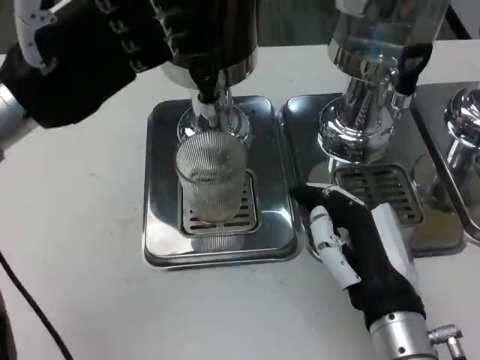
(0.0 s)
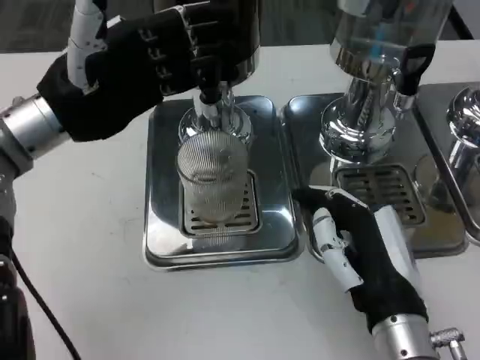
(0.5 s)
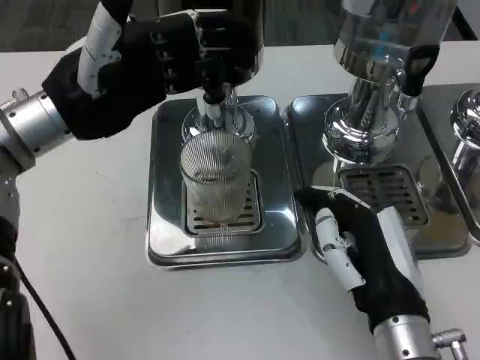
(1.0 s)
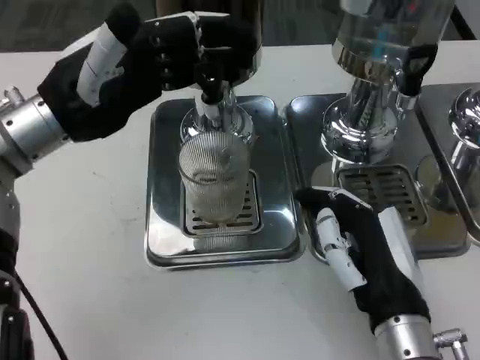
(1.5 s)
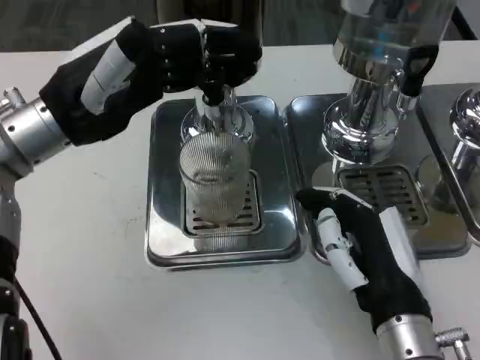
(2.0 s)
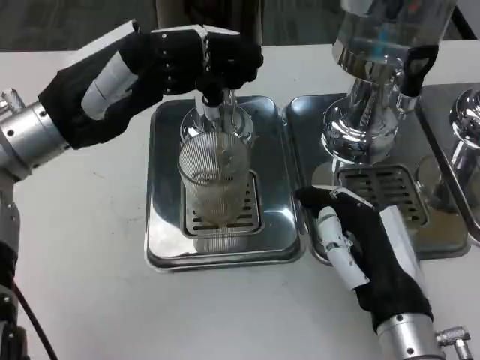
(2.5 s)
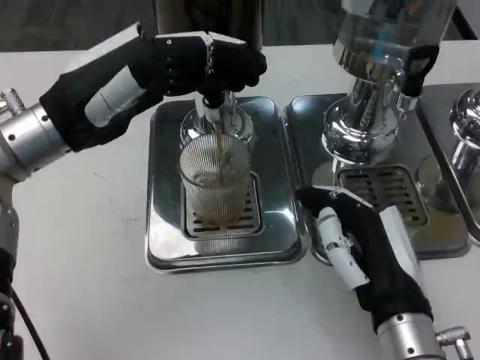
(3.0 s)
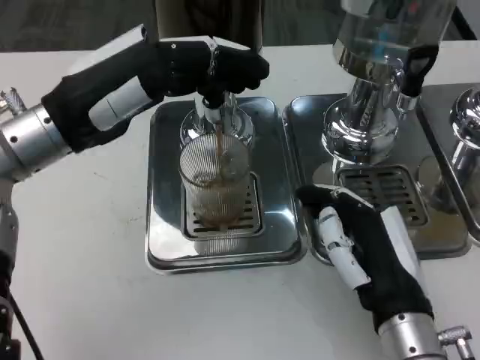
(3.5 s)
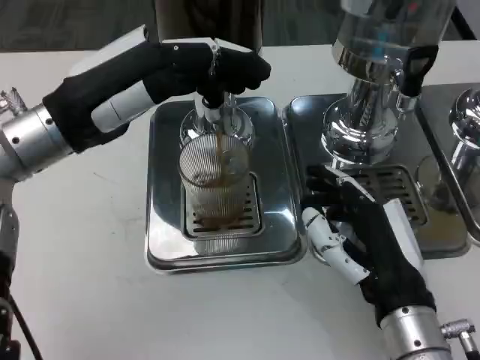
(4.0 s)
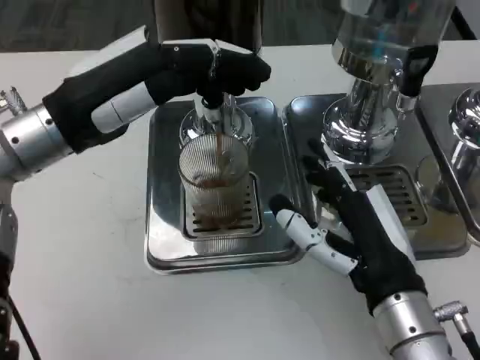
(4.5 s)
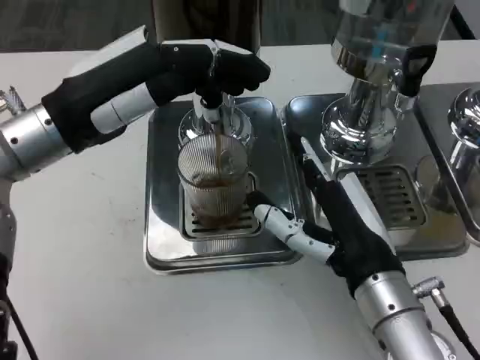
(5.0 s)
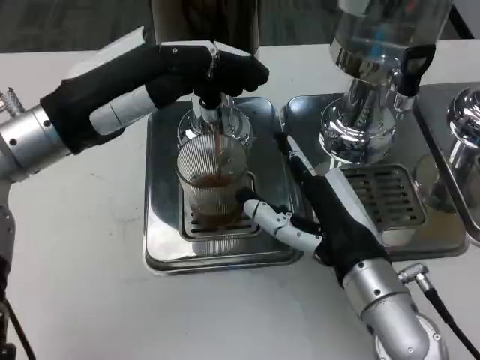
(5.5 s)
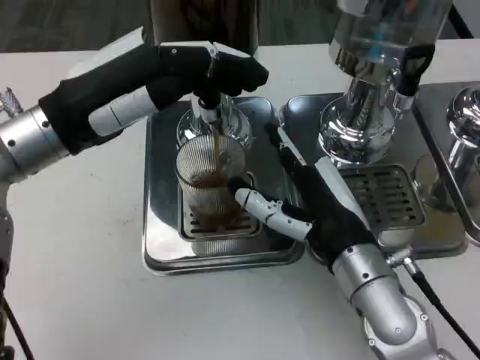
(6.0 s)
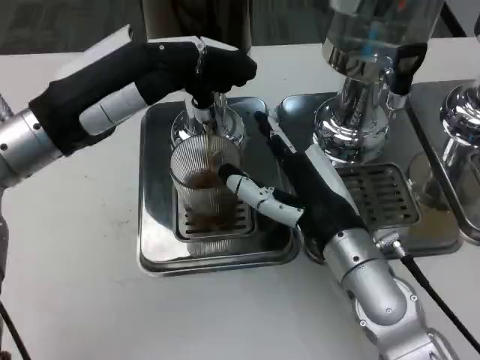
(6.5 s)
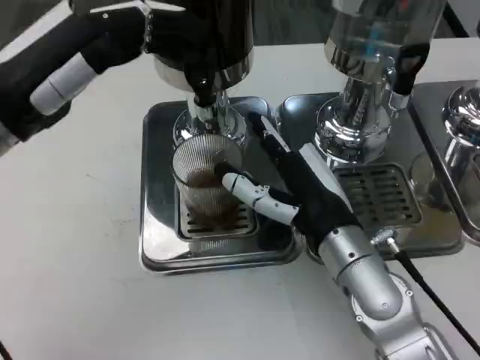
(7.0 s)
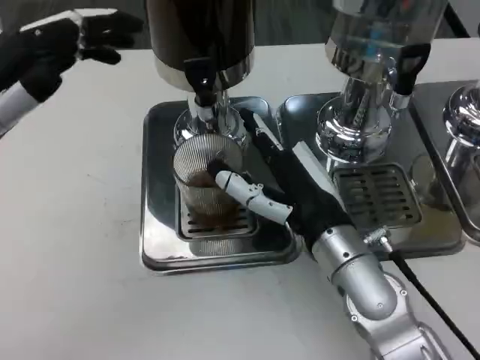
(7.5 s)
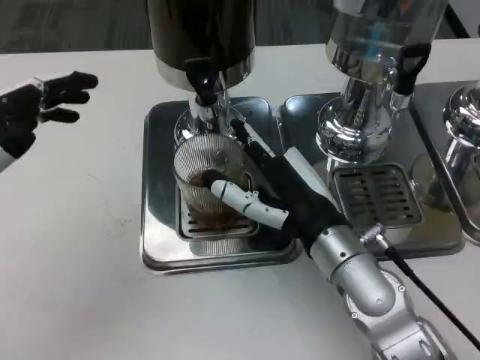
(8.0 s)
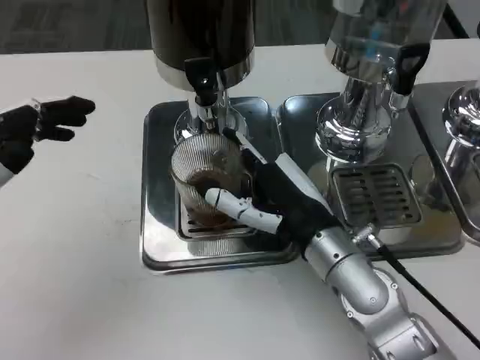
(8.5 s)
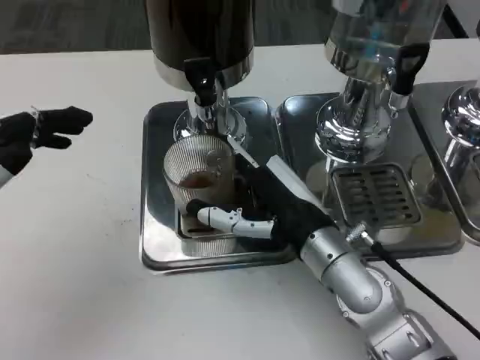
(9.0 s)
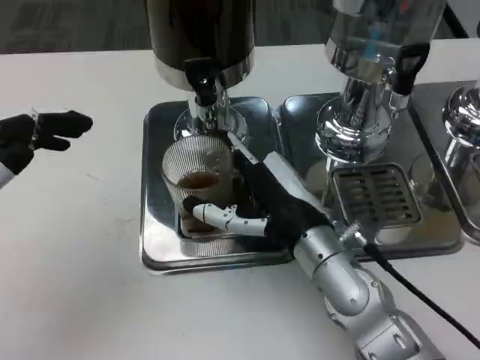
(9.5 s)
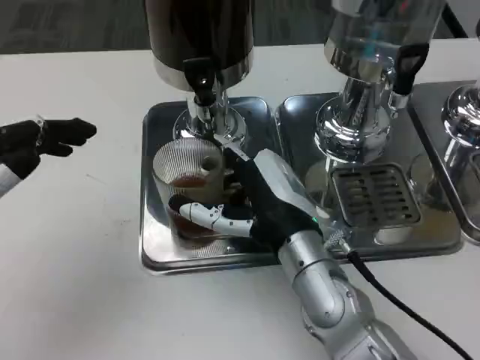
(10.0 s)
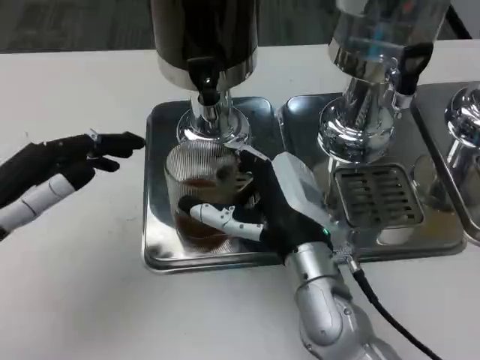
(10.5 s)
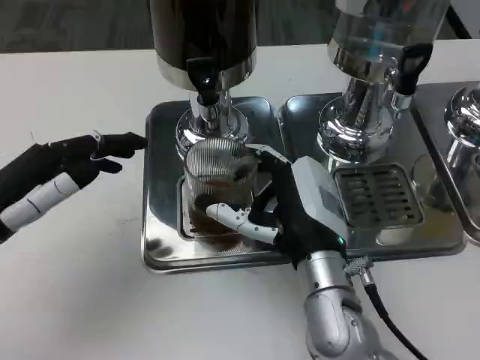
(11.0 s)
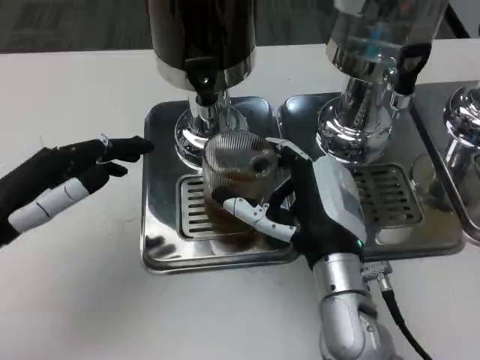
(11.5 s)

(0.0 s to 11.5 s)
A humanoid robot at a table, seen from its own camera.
Task of the whole recording: Grasp the cup under the faucet to collect the drink, then remove the cup.
2.0 s - 4.0 s: The hands stay close to where they were, moving slightly.
4.0 s - 6.0 s: The right hand goes roughly 5 cm forward.
6.0 s - 7.5 s: The left hand shifts about 10 cm to the left and backward.
7.5 s - 9.5 s: The left hand goes roughly 5 cm backward.

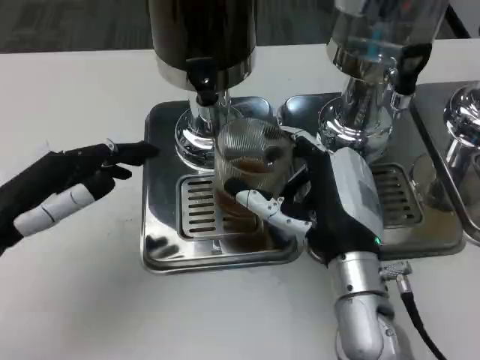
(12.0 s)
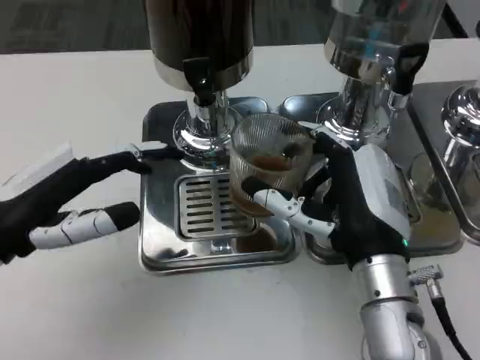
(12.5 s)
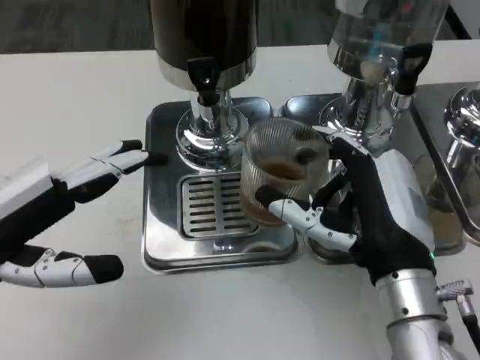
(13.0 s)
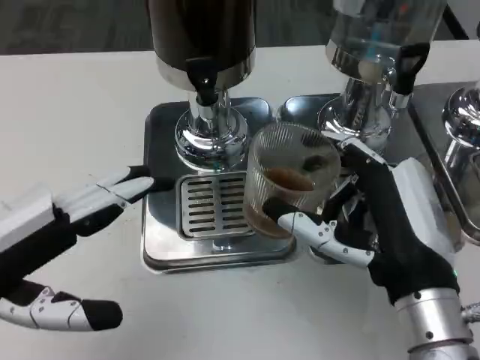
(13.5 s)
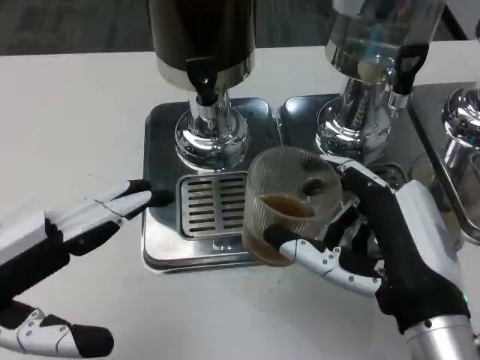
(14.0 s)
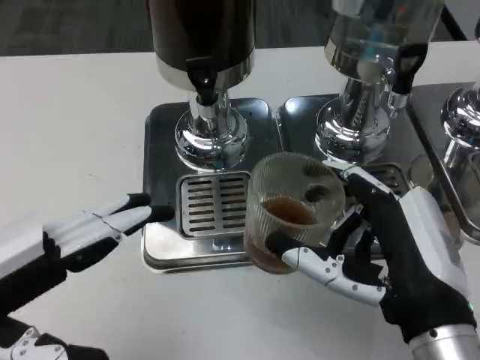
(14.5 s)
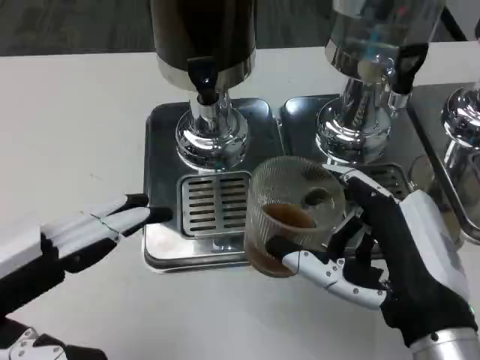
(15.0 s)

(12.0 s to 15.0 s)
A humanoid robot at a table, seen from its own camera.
Task of the whole recording: Grasp the cup under the faucet to collect the drink, then remove the cup.
12.0 s - 13.5 s: The hands both shift backward by about 5 cm.

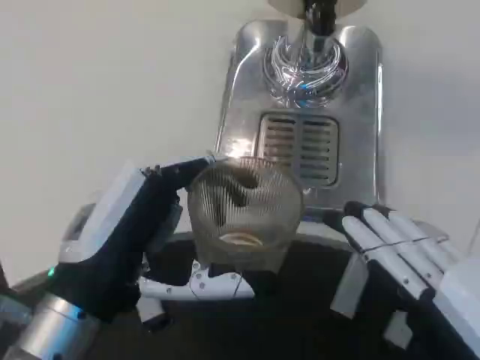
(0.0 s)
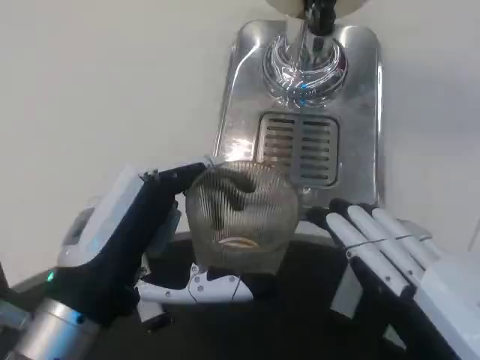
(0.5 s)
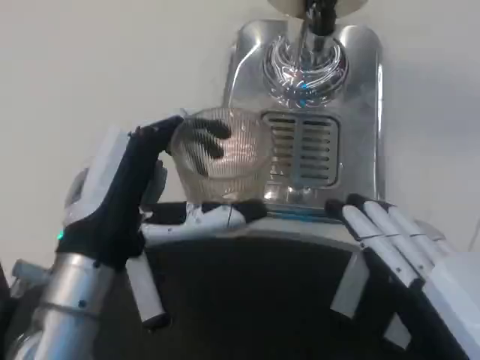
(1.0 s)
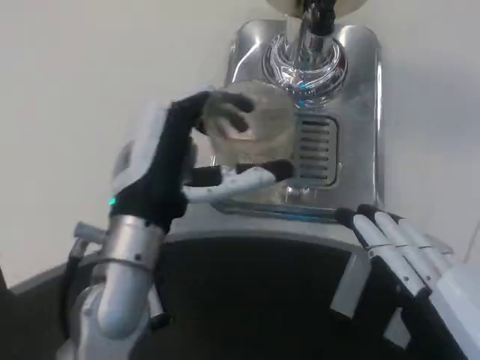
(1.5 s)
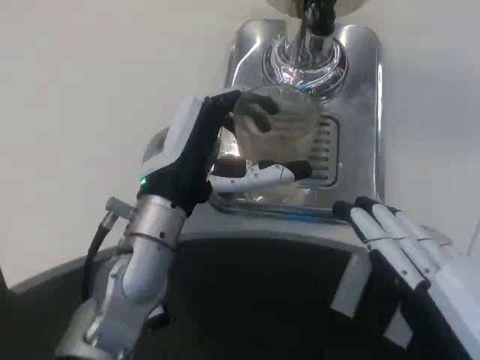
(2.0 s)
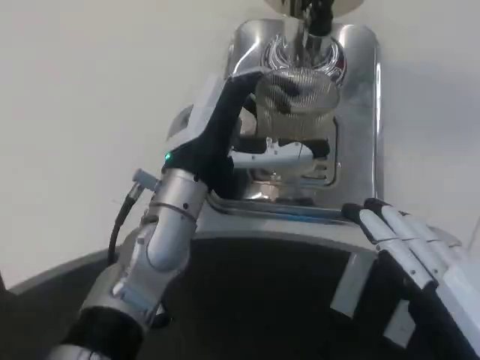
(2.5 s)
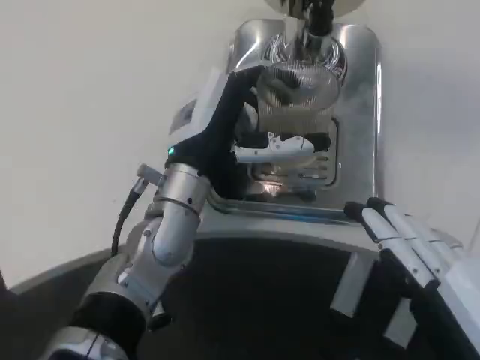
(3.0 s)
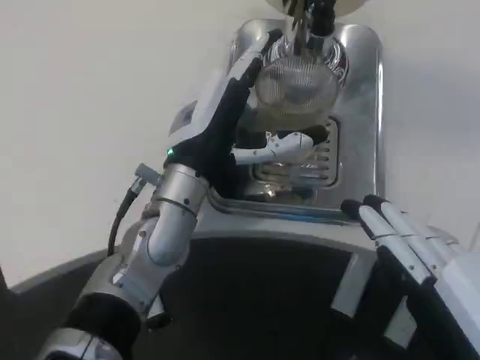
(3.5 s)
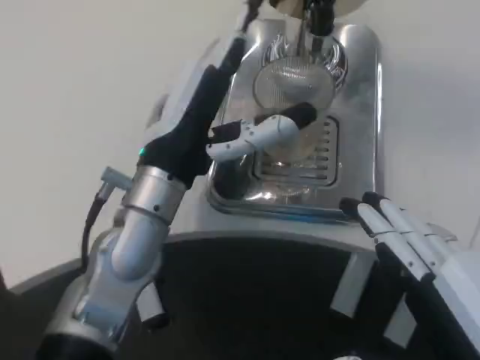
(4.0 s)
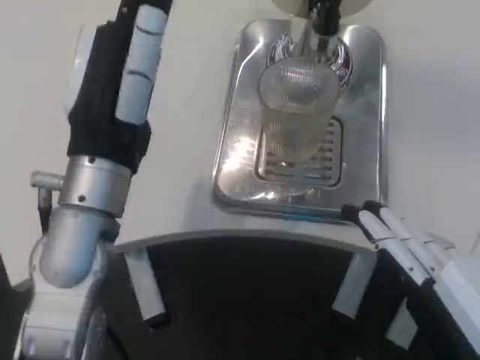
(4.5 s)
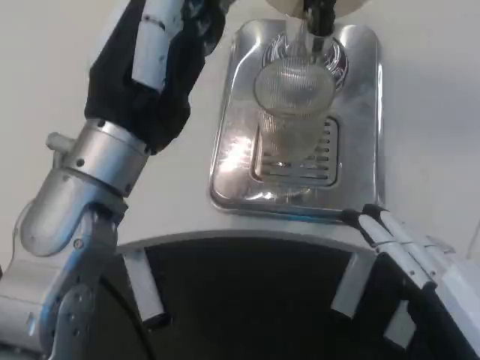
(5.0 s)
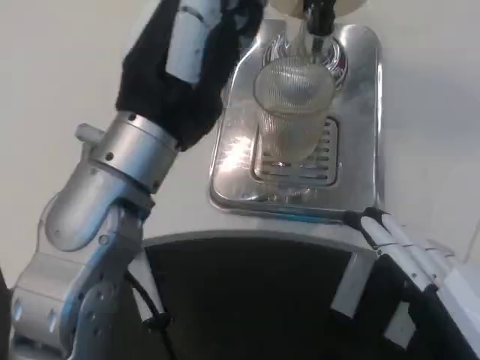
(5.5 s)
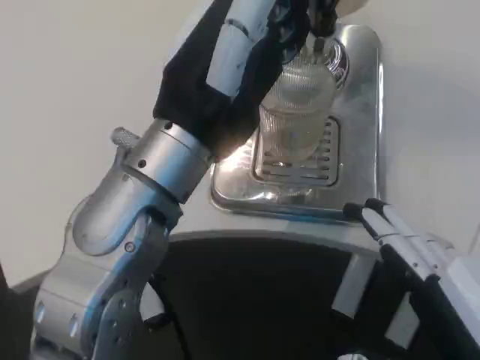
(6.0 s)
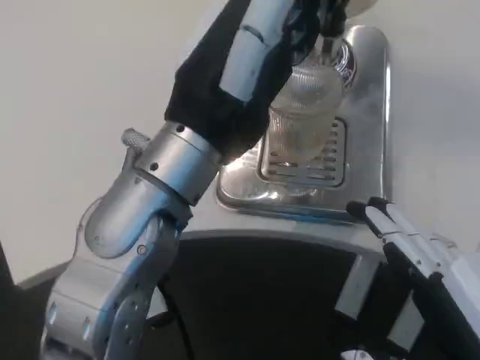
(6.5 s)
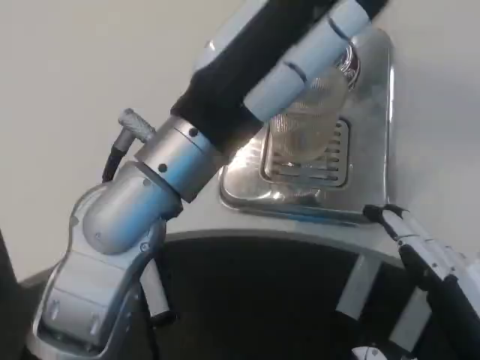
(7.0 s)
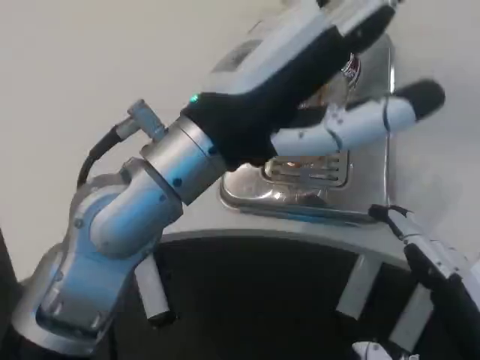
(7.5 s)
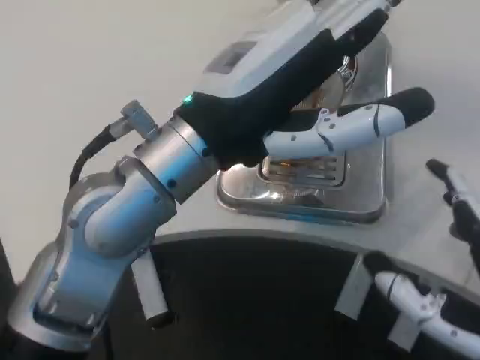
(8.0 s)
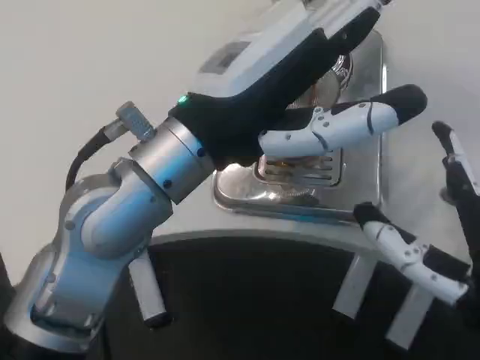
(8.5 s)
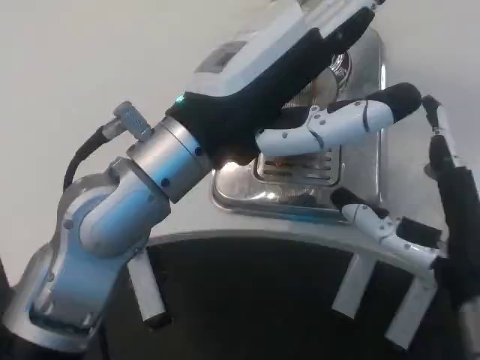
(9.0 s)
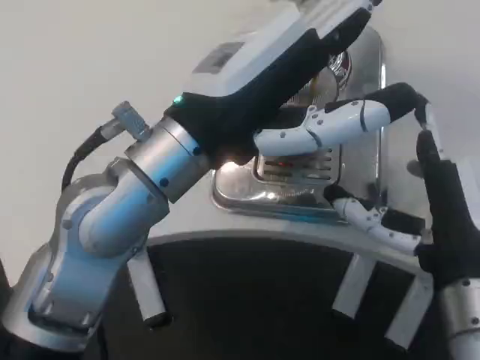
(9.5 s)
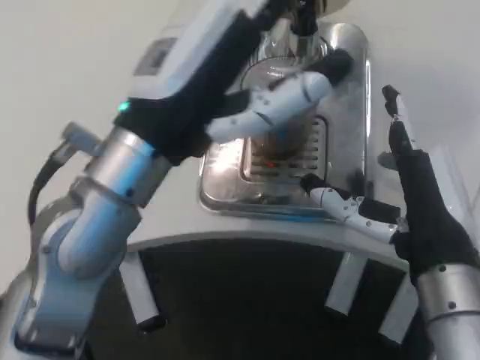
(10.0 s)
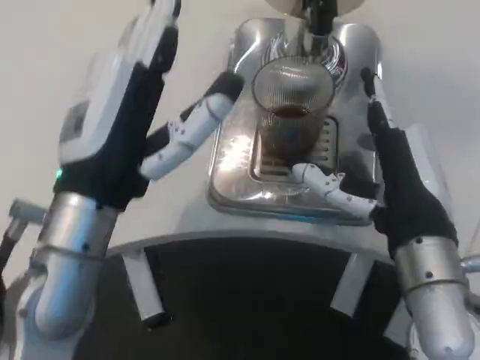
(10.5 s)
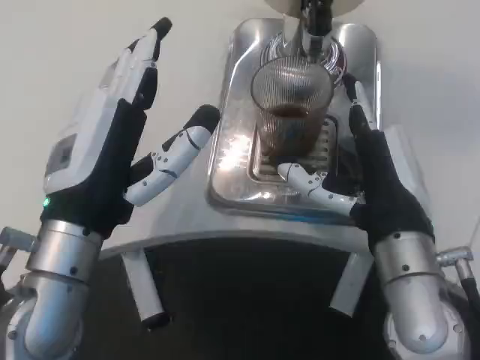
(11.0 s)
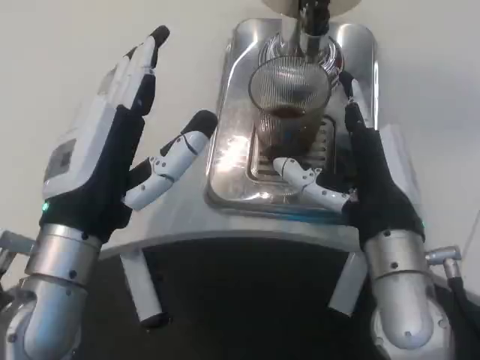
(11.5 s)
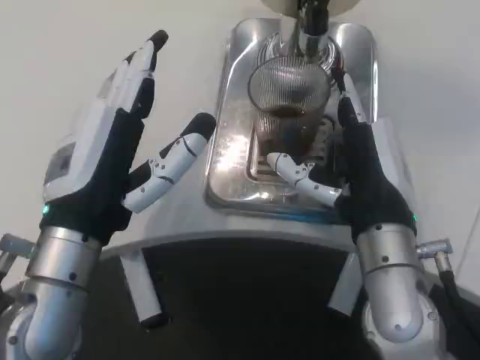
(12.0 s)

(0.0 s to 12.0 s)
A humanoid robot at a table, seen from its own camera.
Task of the whole recording: Grasp the cup under the faucet to collect the drink, then remove the cup.
0.0 s - 2.0 s: The left hand moves forward and to the right, roughly 15 cm.
2.0 s - 4.0 s: The hands make only small movements.
4.0 s - 6.0 s: The left hand heads upward and backward, covering some 10 cm.
8.0 s - 10.0 s: The right hand goes about 10 cm forward.
10.0 s - 12.0 s: The left hand shifts about 5 cm downward, while the right hand shifts by about 5 cm.
